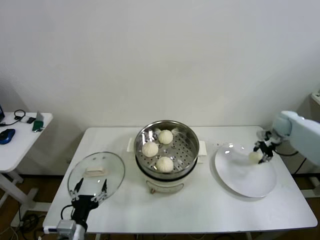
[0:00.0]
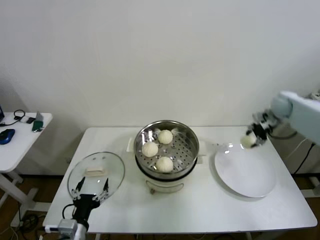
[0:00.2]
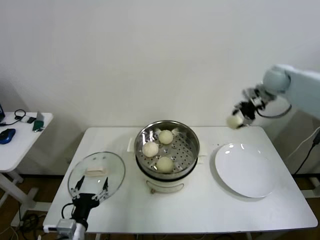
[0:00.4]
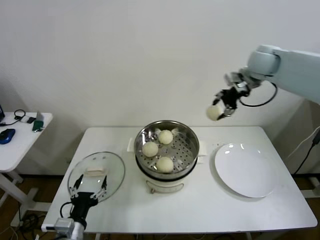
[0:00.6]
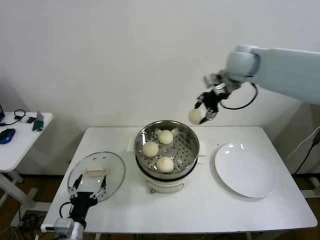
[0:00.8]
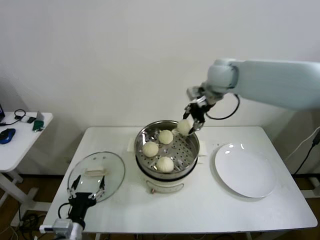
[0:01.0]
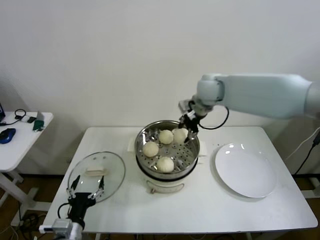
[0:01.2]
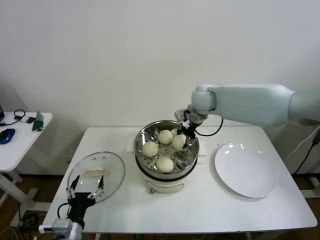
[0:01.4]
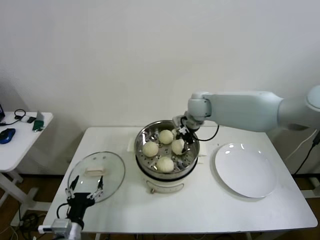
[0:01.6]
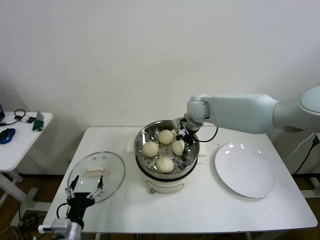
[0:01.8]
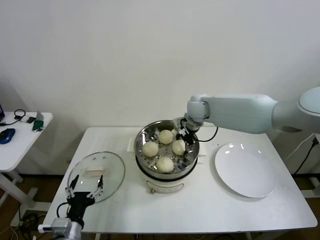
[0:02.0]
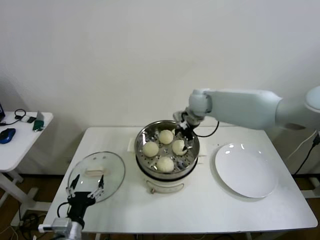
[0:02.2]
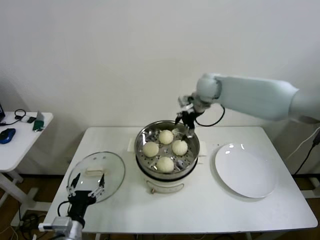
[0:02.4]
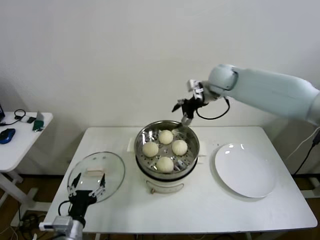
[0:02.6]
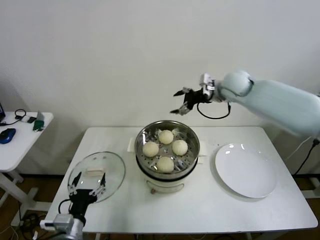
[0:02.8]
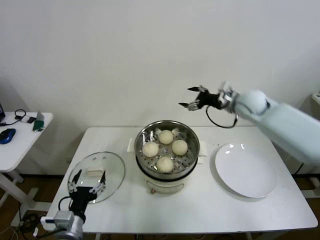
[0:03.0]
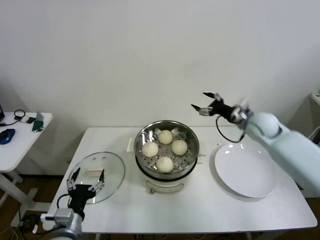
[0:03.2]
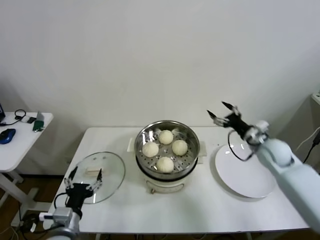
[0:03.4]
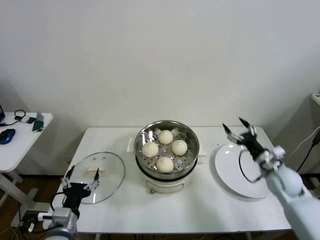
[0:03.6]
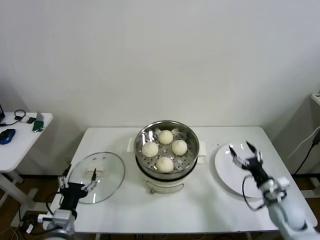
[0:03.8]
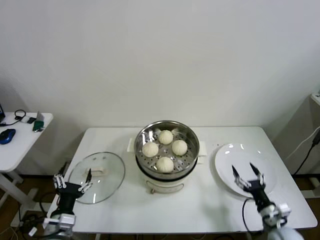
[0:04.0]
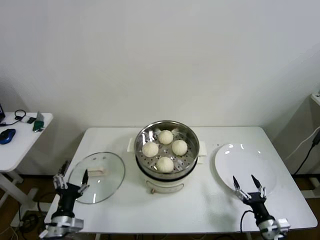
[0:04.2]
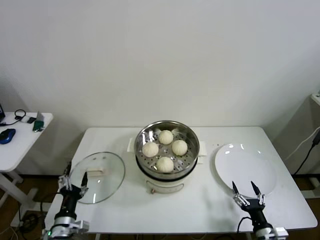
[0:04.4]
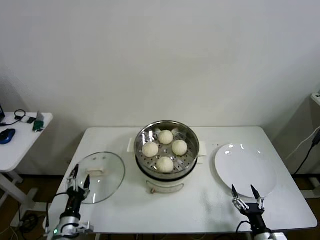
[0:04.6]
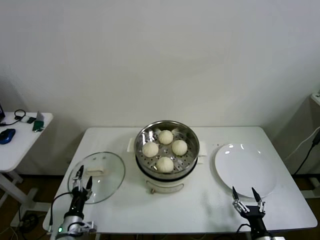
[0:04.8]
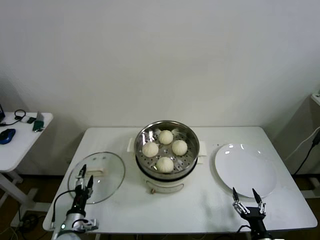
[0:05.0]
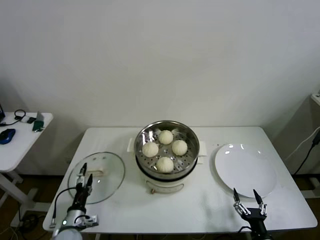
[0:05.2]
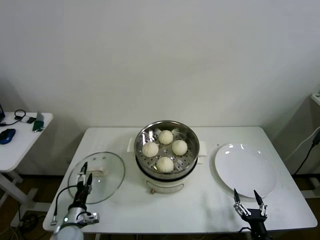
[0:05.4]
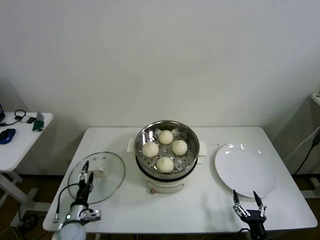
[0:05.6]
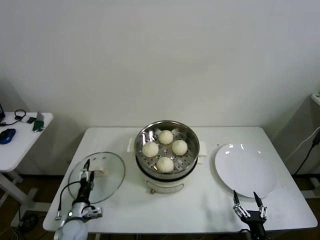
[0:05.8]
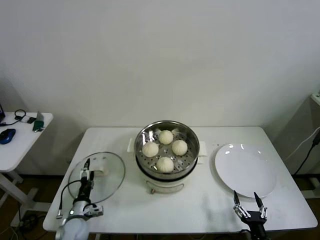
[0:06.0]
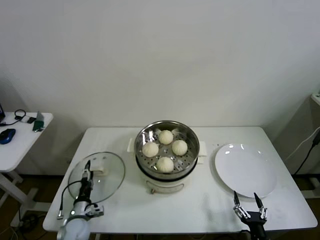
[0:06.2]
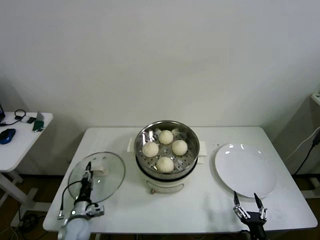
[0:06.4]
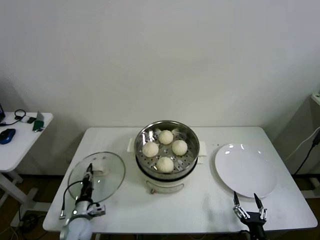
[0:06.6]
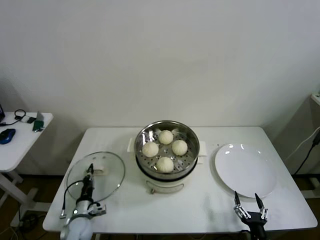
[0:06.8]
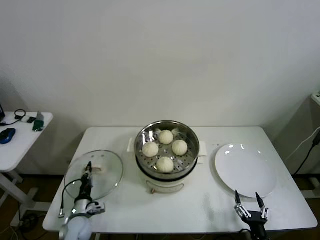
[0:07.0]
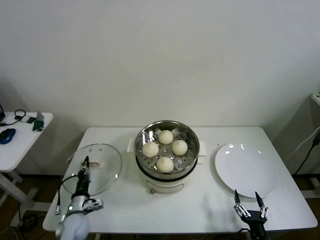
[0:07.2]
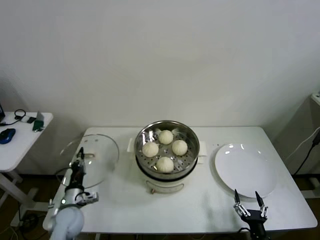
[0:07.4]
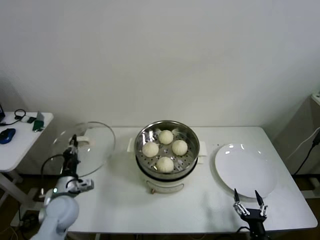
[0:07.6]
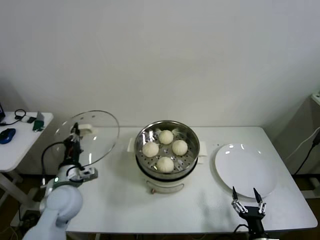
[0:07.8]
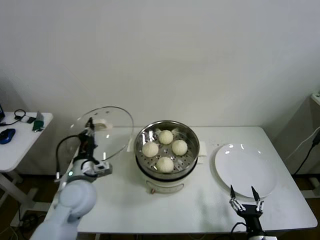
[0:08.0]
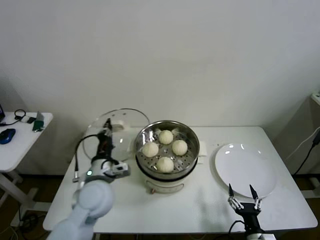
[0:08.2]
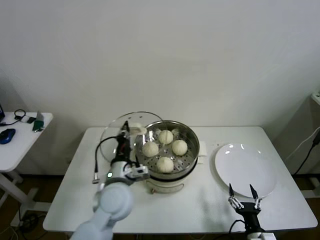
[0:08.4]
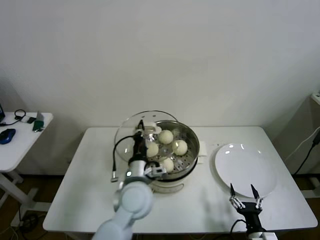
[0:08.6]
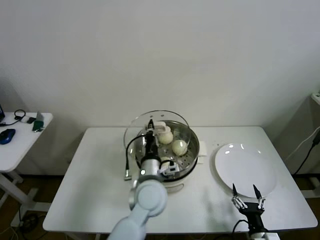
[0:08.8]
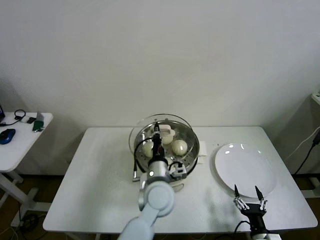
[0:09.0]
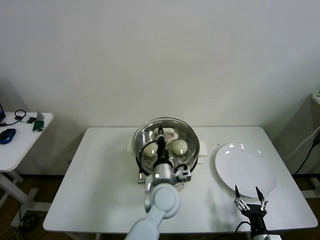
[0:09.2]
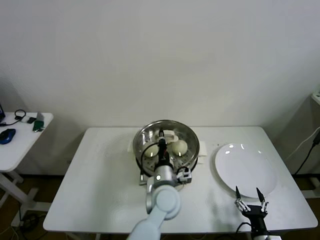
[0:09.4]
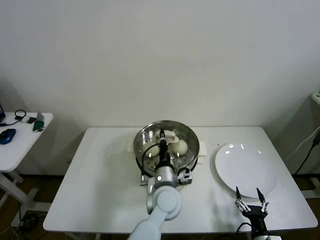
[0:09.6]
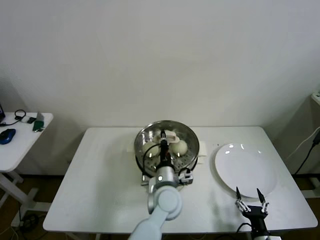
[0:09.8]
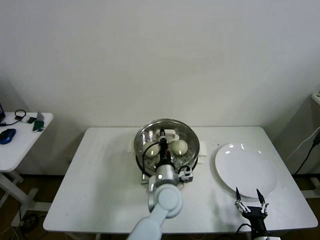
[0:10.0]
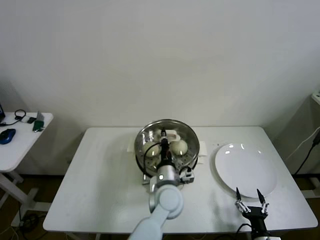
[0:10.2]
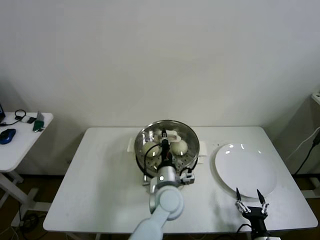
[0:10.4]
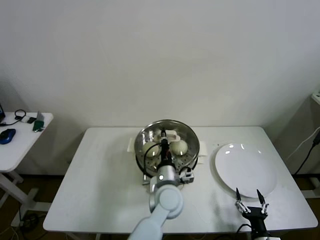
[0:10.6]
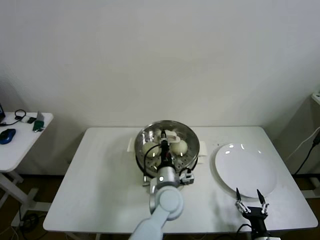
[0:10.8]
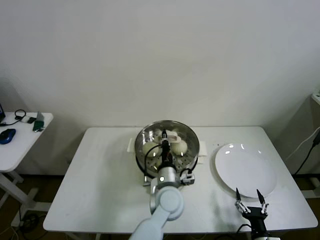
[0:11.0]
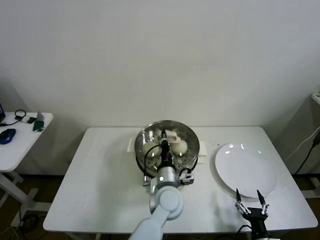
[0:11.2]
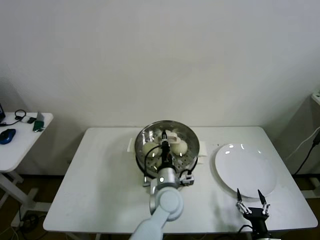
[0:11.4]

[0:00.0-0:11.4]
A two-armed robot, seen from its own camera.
Step, 0:00.0 to 0:02.0: Place the baozi on the steamer with right gripper.
Step, 0:02.2 to 0:06.8: Grasp the pot lid with left gripper.
0:00.0 to 0:01.4: The right gripper shifts some 35 cm to the left.
0:01.4 to 0:02.8: The right gripper moves to the right, approximately 10 cm, and opens its fingers.
0:02.8 to 0:04.2: The right gripper shifts roughly 50 cm backward and downward. The left gripper shifts by about 5 cm.
0:04.2 to 0:05.6: The left gripper moves downward and forward, some 15 cm. The right gripper is displaced backward by roughly 5 cm.
0:05.6 to 0:07.2: The left gripper closes.
0:07.2 to 0:08.6: The left gripper travels to the right and upward by roughly 30 cm.
0:08.6 to 0:10.0: The left gripper is displaced to the right and downward by roughly 10 cm.
0:10.0 to 0:11.4: Both grippers stay put.

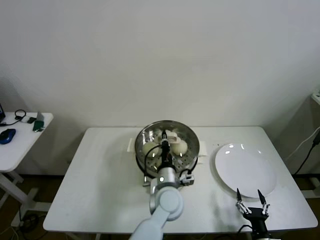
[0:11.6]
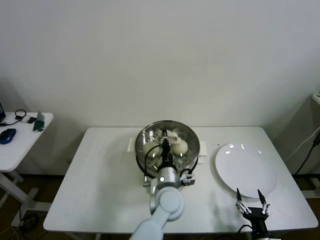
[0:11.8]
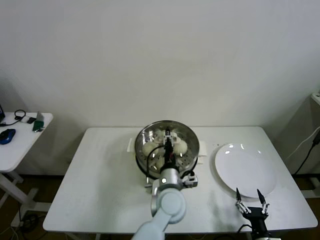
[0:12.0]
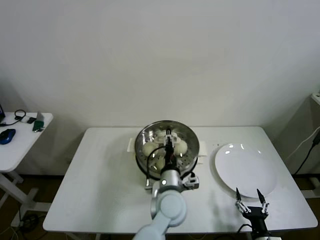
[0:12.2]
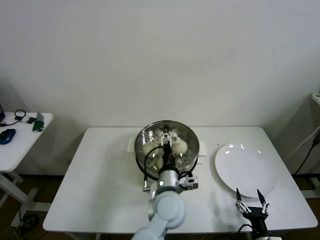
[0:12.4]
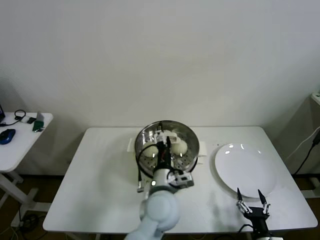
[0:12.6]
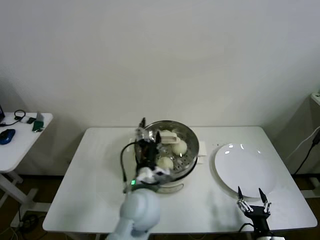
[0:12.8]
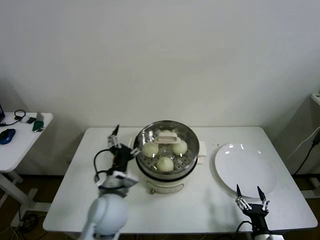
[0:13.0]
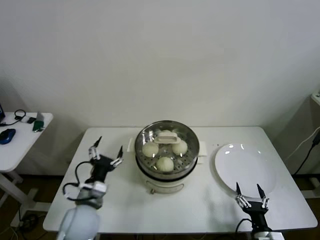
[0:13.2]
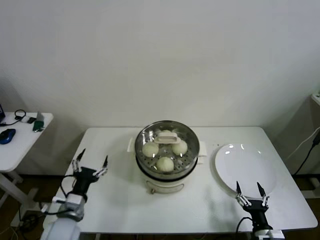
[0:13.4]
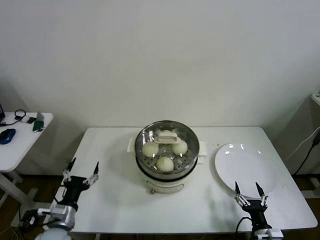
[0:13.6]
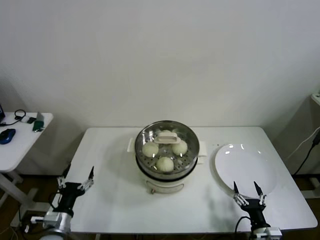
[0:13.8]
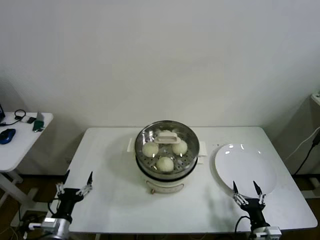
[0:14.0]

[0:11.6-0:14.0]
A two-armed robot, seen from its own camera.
0:11.6 to 0:12.8: The left gripper heads upward, covering approximately 10 cm, and opens up.
0:12.8 to 0:14.0: The left gripper moves to the left and downward, about 35 cm.

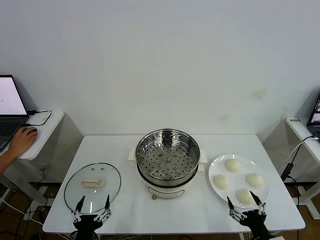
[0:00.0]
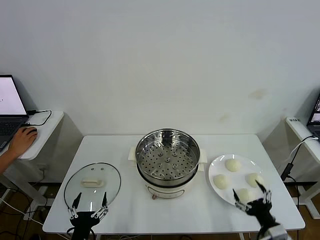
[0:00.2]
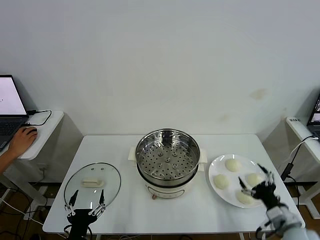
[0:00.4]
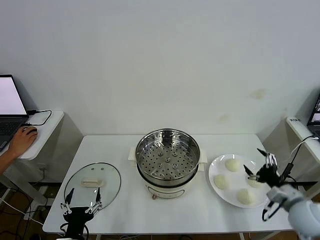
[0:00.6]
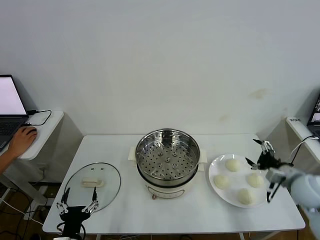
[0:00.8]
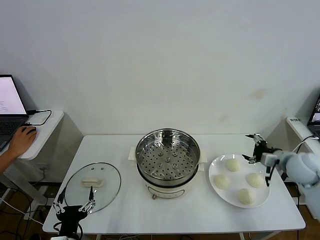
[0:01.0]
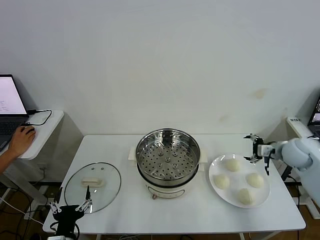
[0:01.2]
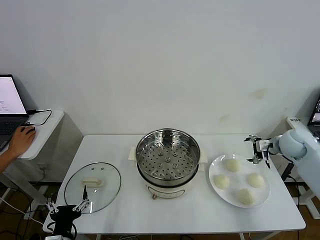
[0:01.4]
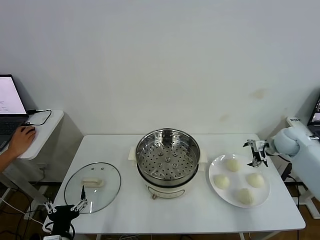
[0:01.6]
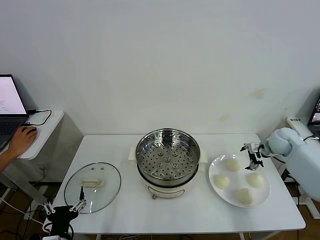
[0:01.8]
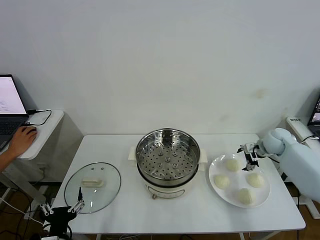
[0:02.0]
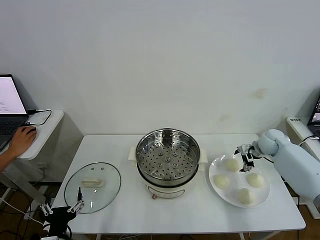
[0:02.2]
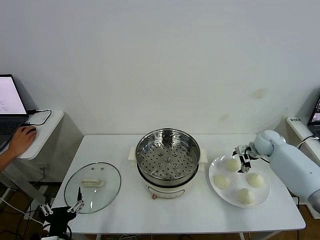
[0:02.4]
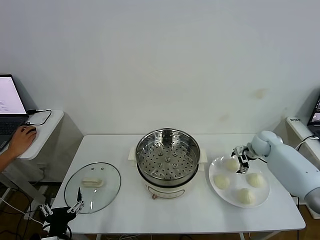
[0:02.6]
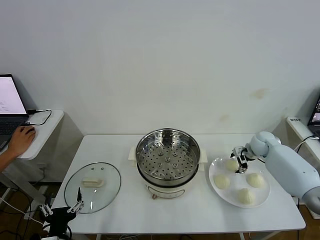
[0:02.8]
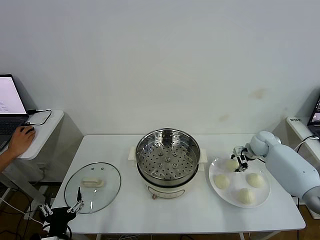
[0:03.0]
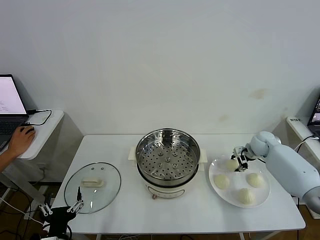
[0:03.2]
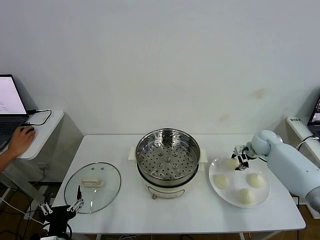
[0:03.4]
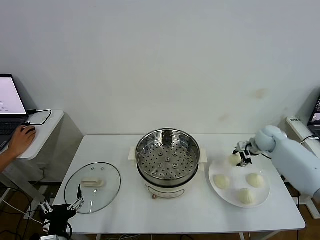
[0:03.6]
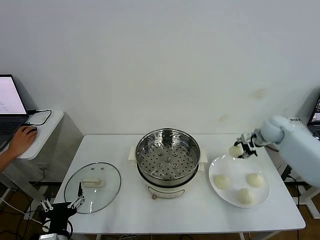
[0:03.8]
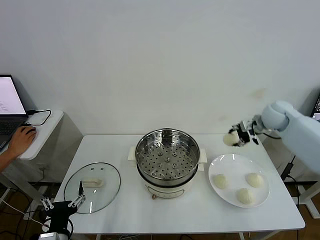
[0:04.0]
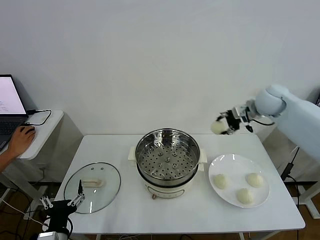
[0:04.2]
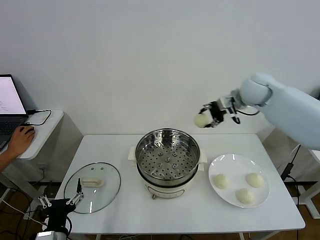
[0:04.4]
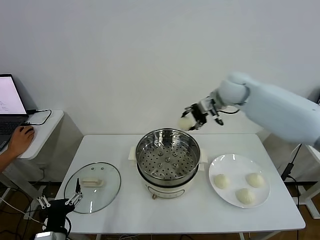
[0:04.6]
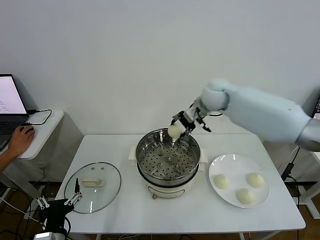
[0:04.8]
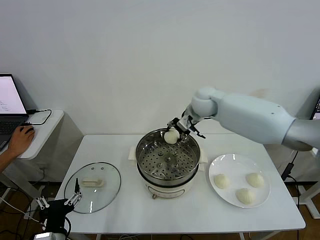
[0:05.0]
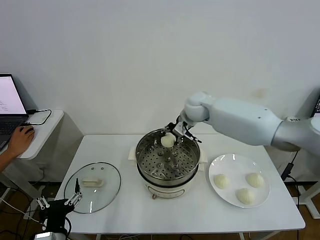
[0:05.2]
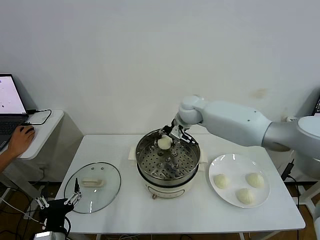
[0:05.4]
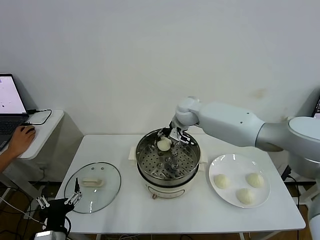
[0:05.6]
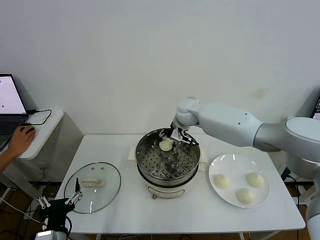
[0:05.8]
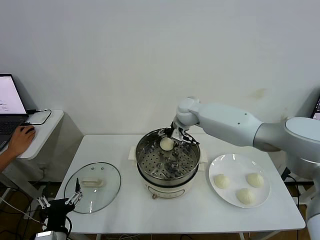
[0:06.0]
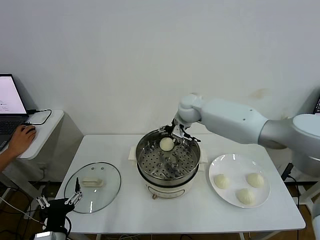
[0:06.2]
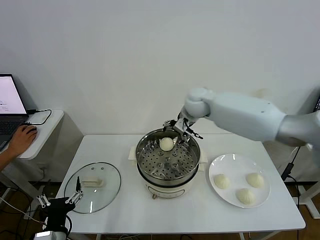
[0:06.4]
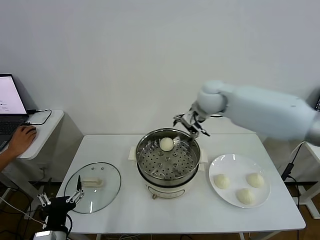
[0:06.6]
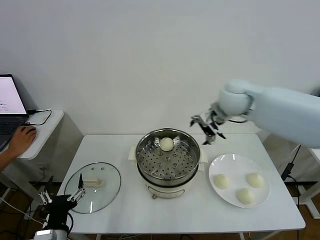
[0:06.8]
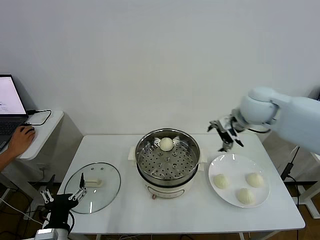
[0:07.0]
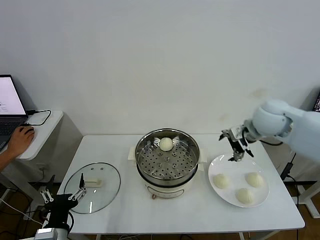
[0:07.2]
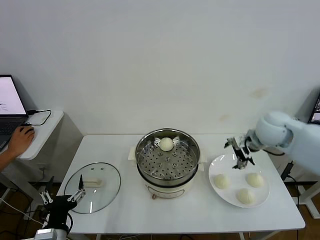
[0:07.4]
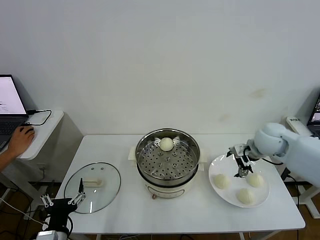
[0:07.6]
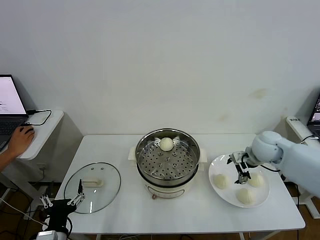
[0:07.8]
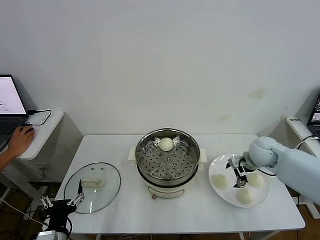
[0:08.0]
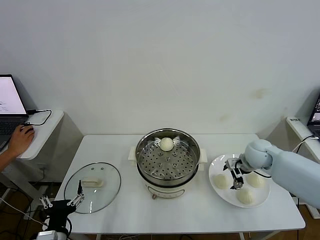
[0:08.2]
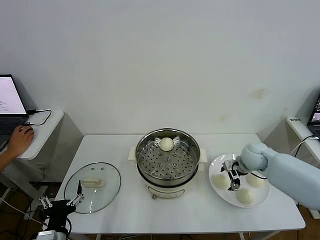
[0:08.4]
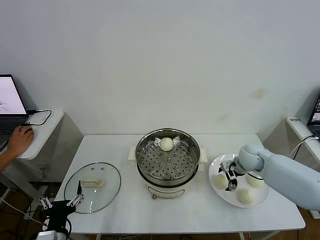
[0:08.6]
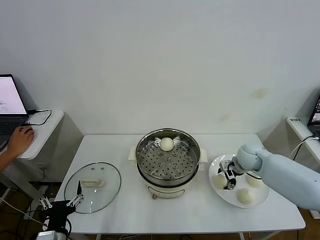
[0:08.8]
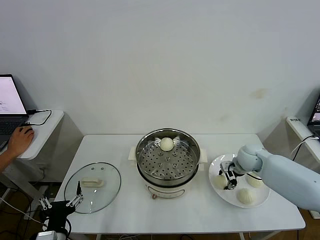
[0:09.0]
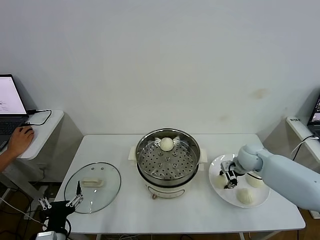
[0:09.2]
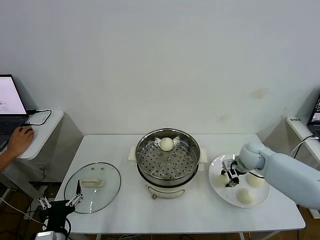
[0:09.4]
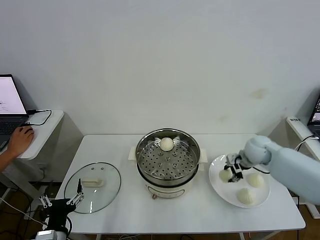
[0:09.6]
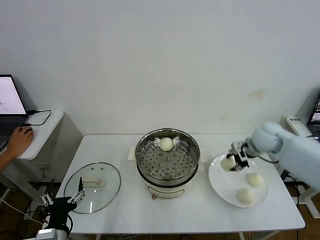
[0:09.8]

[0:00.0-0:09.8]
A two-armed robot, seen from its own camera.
Step, 0:00.0 to 0:03.0: Grasp the baozi in the plate with right gripper.
Step, 0:03.2 to 0:06.2: Place the baozi on the steamer with right gripper.
Step, 0:06.4 to 0:09.0: Grasp the baozi in the plate with right gripper.
0:01.4 to 0:02.8: The right gripper goes approximately 10 cm downward and forward, and closes.
0:02.8 to 0:04.2: The right gripper goes some 25 cm upward and to the left, and closes its fingers.
0:04.2 to 0:05.6: The right gripper moves to the left and downward, approximately 25 cm.
0:05.6 to 0:07.0: The right gripper moves to the right, backward and upward, some 25 cm, and opens up.
0:07.0 to 0:08.4: The right gripper goes roughly 20 cm downward.
0:08.4 to 0:09.8: The right gripper shifts some 10 cm upward, and closes.
